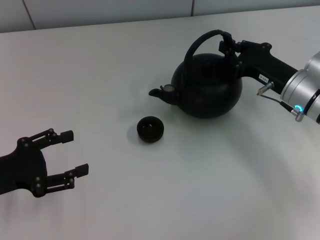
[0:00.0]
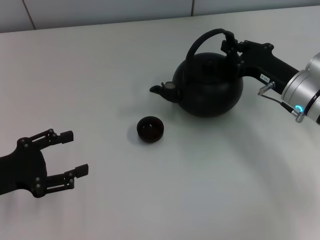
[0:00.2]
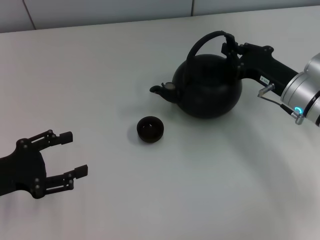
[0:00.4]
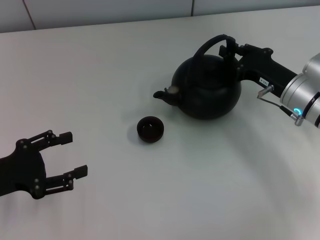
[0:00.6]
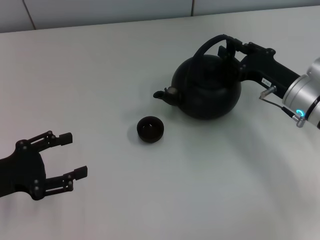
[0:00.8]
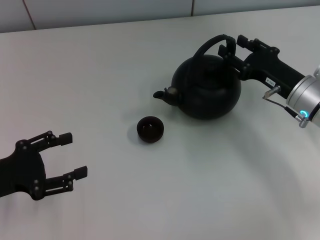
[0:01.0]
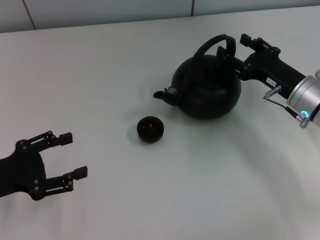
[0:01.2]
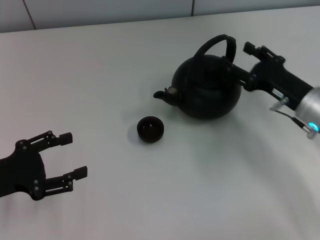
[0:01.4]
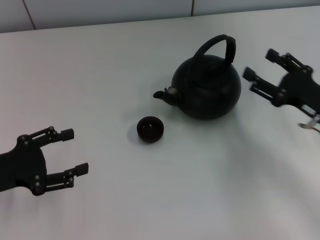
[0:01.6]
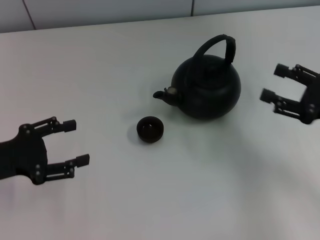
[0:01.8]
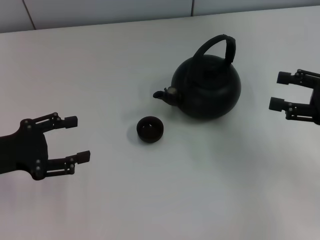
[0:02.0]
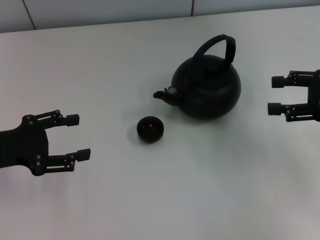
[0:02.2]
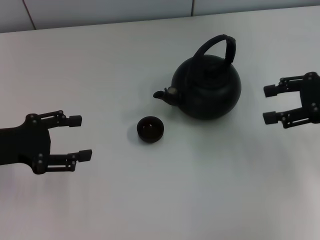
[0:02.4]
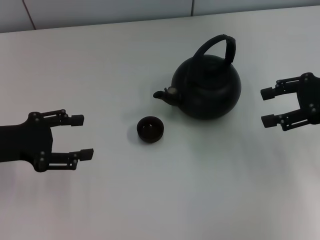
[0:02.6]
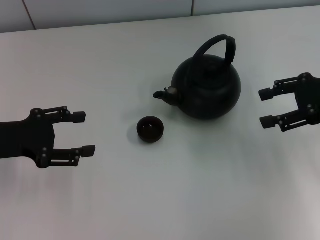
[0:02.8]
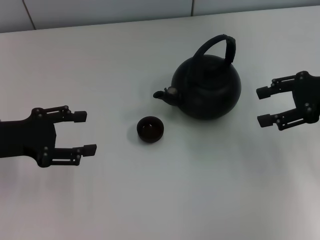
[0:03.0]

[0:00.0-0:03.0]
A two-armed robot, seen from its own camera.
Task of the whole recording: Grasp the handle of the teapot with one hand and pour tea into the teacup.
0:00.0 to 0:01.6: The right gripper goes some 10 cm backward and to the right, and opens its fingers.
0:01.6 to 0:03.0: The left gripper moves forward, roughly 5 cm. The right gripper is displaced upward and forward by approximately 10 cm.

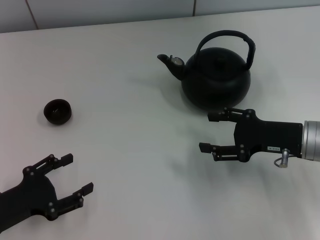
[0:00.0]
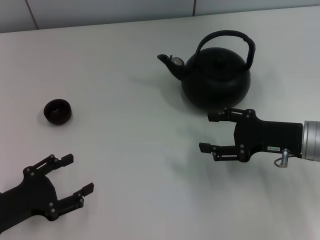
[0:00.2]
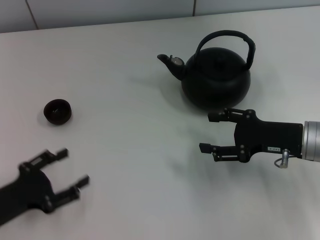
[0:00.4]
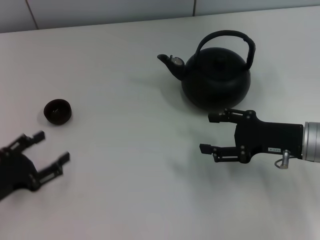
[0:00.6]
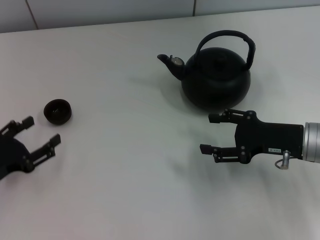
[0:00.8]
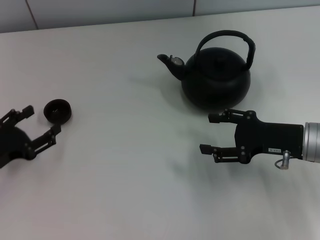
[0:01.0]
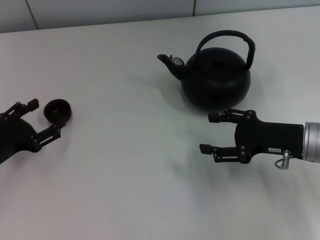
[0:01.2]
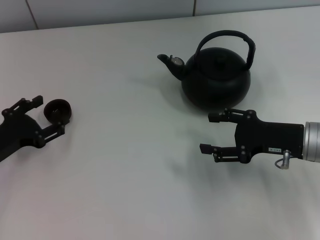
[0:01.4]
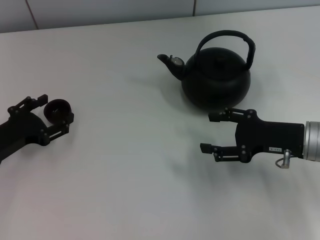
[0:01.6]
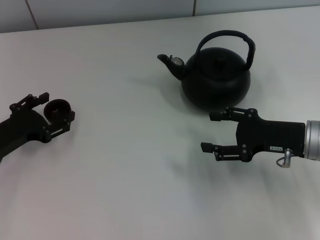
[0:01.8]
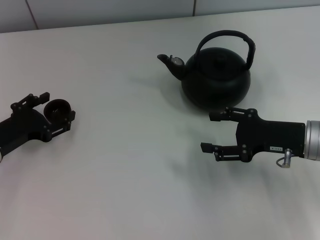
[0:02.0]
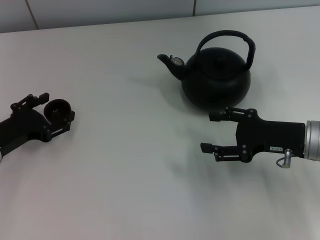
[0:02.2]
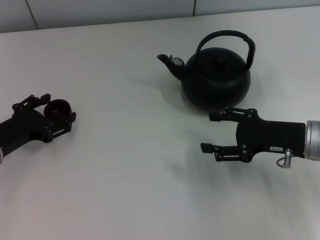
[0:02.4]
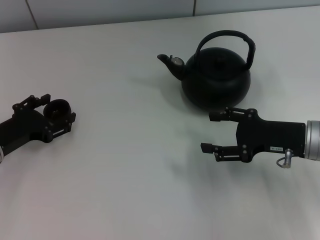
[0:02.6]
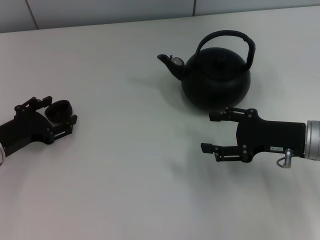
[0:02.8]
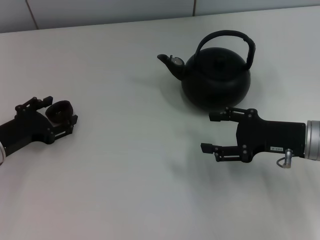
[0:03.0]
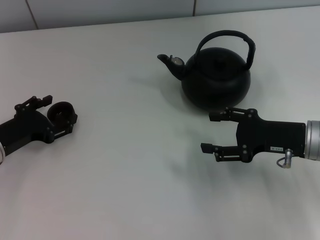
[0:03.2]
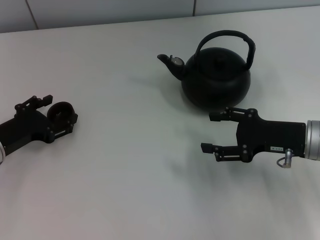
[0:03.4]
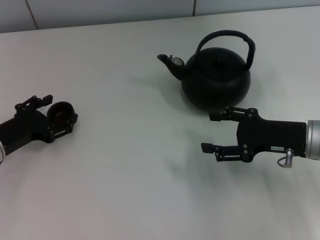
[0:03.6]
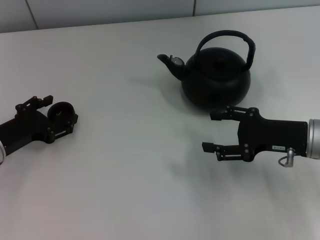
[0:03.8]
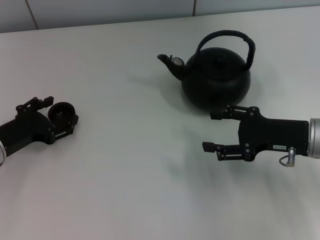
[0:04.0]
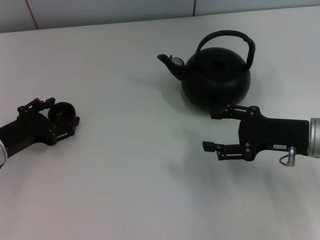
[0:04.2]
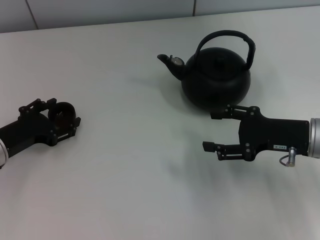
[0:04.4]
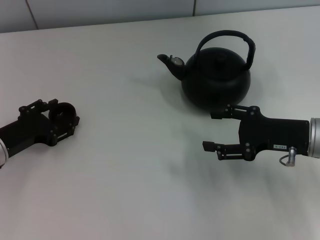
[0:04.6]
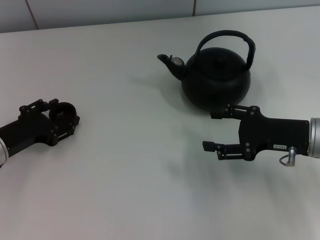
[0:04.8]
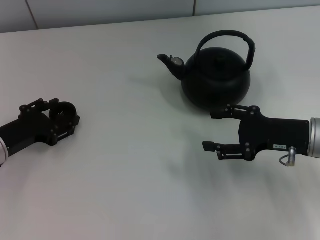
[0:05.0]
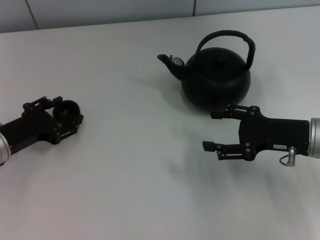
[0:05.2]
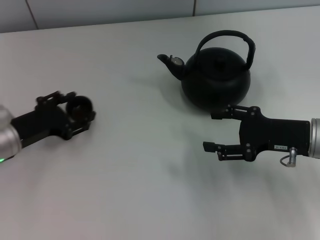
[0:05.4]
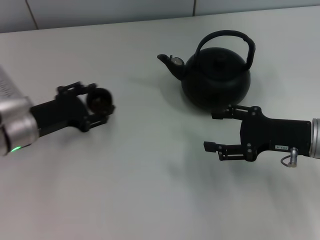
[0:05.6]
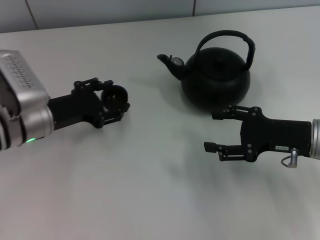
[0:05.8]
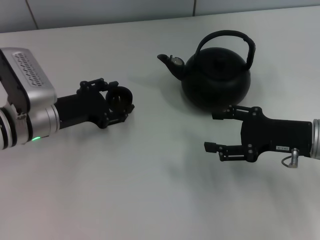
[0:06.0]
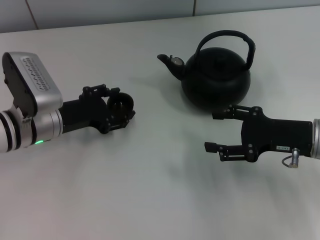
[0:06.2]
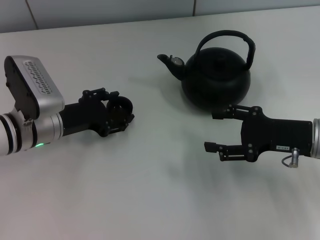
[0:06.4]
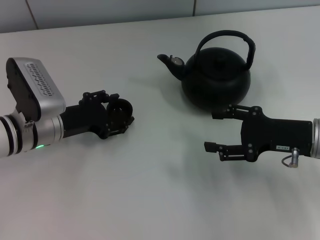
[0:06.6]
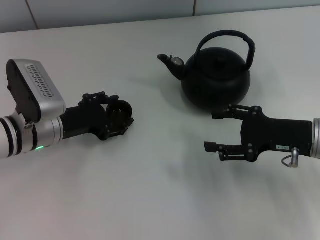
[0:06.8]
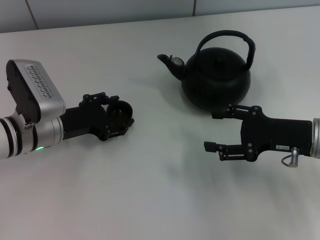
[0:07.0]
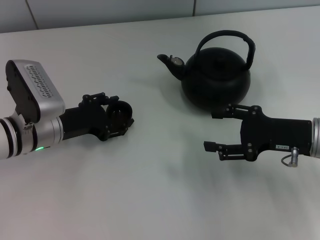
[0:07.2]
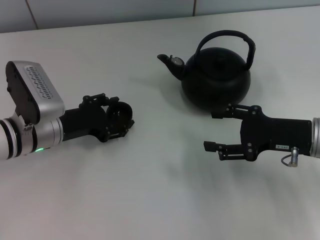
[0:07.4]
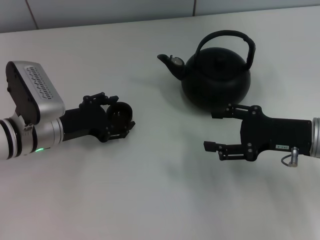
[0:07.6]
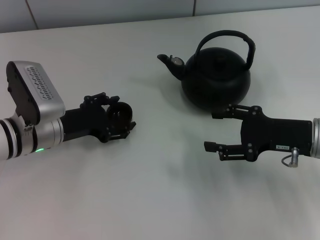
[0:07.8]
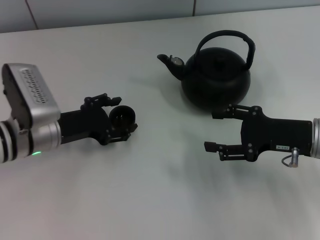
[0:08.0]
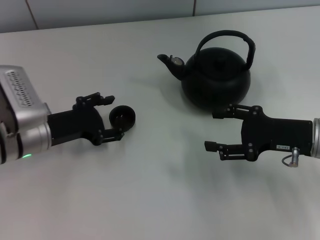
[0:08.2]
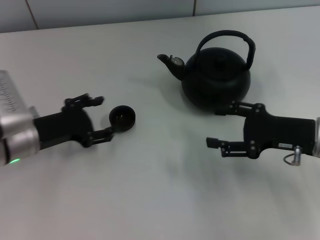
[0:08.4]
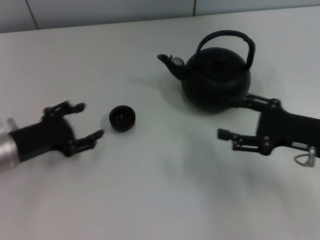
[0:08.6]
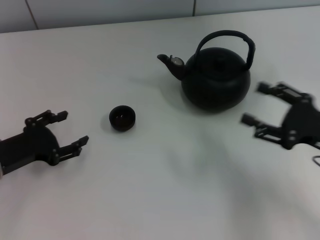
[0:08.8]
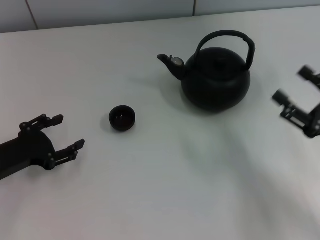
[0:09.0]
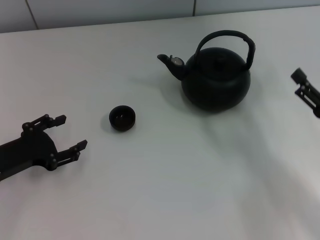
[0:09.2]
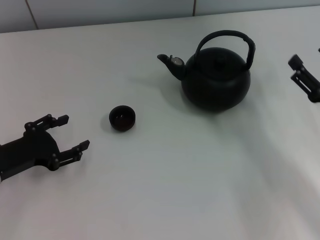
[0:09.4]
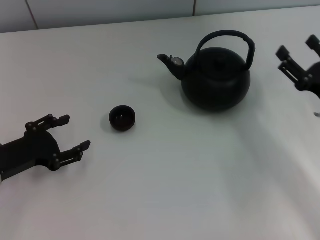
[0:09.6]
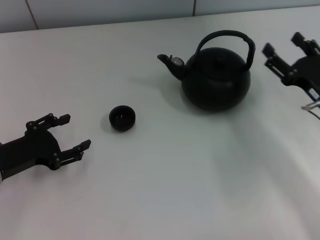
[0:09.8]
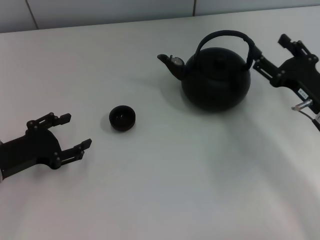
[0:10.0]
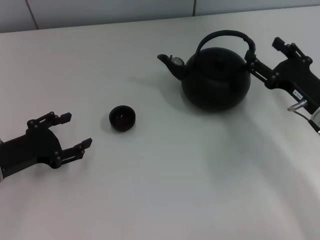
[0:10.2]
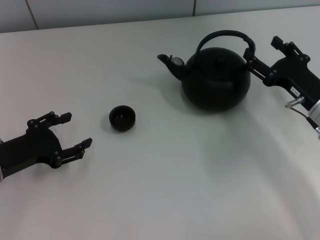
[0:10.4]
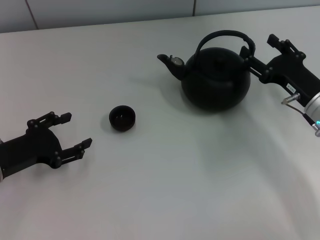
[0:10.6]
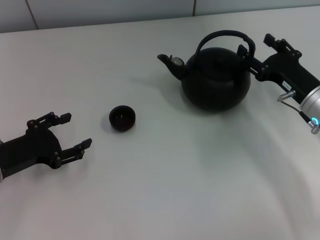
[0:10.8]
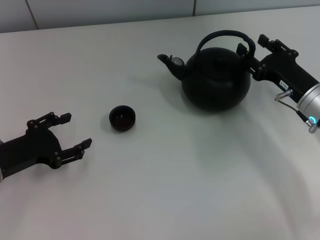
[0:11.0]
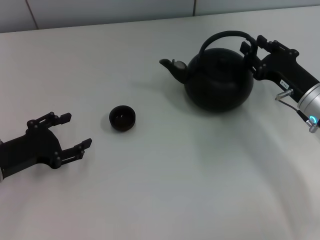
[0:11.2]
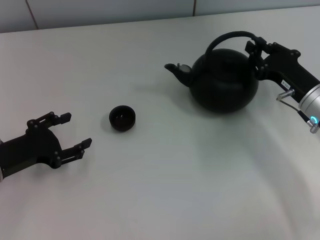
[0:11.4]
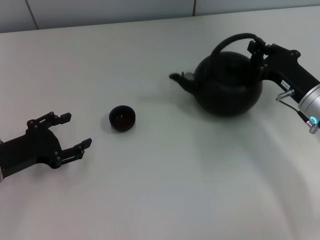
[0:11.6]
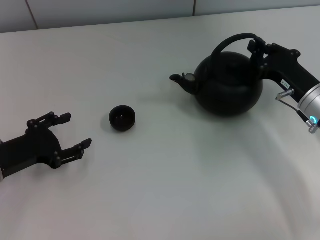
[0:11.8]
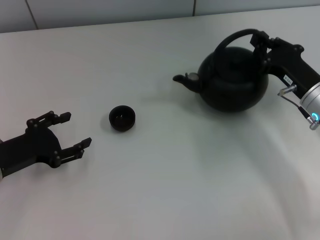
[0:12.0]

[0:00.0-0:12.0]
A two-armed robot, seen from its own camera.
Task of the whole recording: Grasp the handle of the teapot with one hand and pour tea into the teacup.
Step, 0:00.0 to 0:05.4: Pick up the teacup with the left gripper.
Step, 0:05.6 to 0:08.4: Place the teacup in the center of view with the left gripper.
0:00.0 to 0:01.6: The left gripper heads forward, covering roughly 10 cm.
0:01.6 to 0:03.0: The grippers make only small movements.
0:03.0 to 0:04.4: Both grippers stay put.
0:04.4 to 0:06.0: The left gripper heads to the right, covering about 10 cm, and closes its fingers.
0:06.0 to 0:07.6: The left gripper opens.
0:07.6 to 0:09.0: The left gripper travels to the left and backward by approximately 10 cm, and opens up. Meanwhile the right gripper travels backward by roughly 10 cm.
0:09.0 to 0:10.4: The right gripper travels forward by about 10 cm.
0:10.4 to 0:12.0: The right gripper closes its fingers.

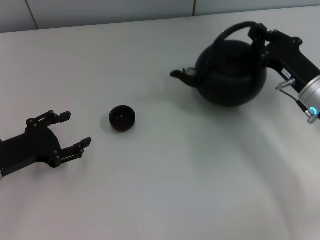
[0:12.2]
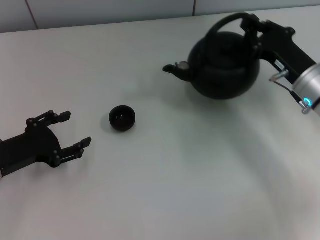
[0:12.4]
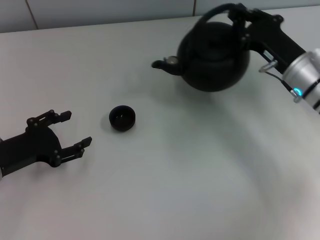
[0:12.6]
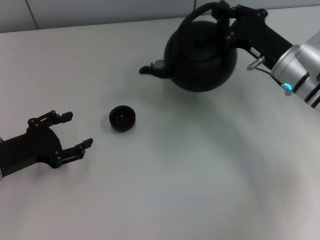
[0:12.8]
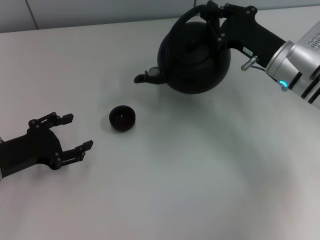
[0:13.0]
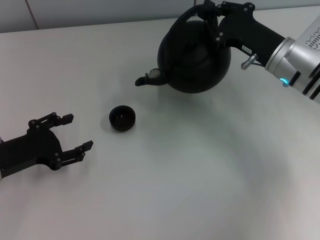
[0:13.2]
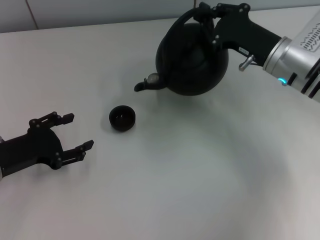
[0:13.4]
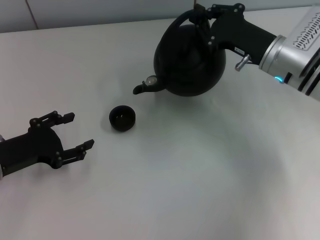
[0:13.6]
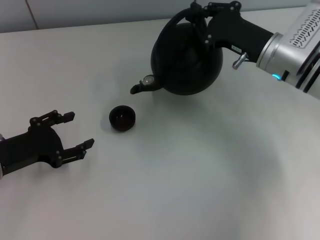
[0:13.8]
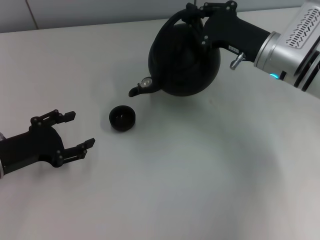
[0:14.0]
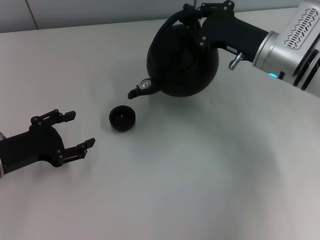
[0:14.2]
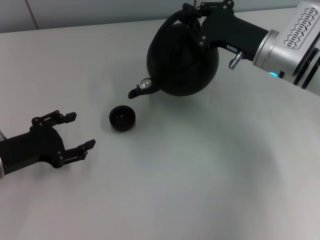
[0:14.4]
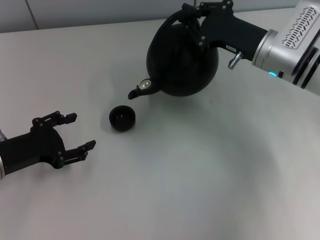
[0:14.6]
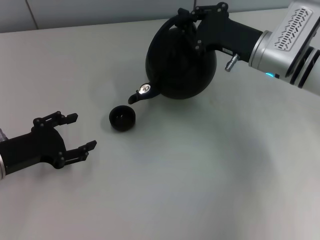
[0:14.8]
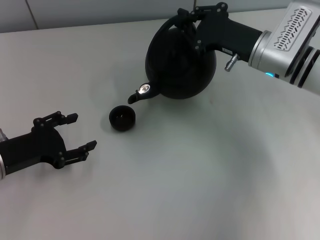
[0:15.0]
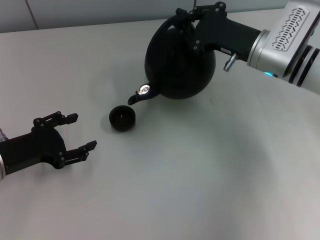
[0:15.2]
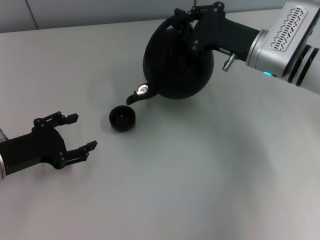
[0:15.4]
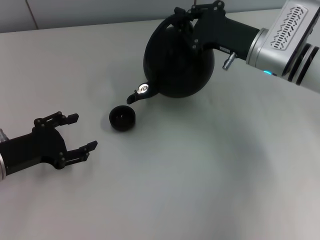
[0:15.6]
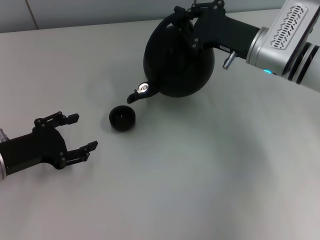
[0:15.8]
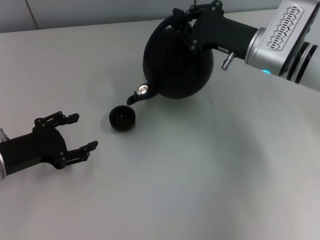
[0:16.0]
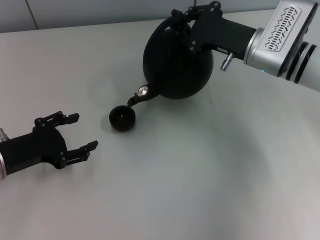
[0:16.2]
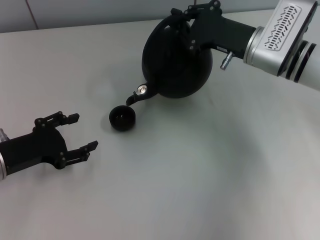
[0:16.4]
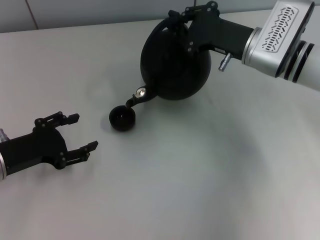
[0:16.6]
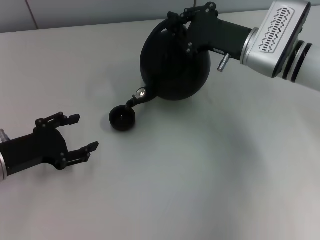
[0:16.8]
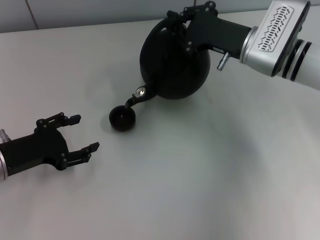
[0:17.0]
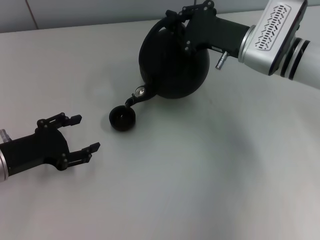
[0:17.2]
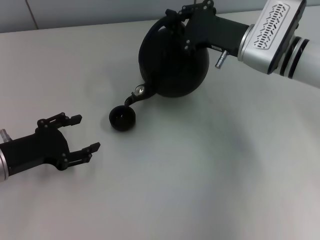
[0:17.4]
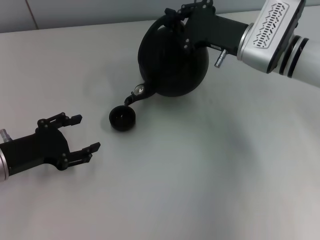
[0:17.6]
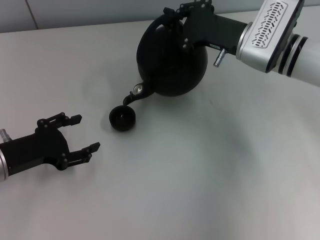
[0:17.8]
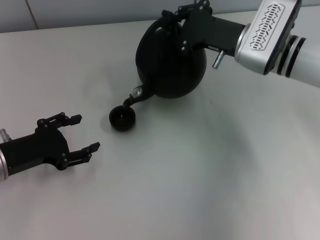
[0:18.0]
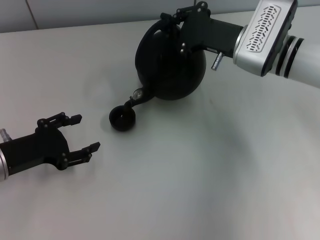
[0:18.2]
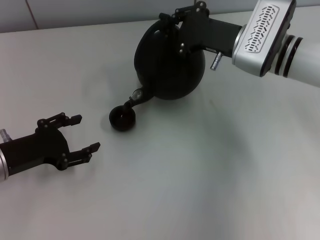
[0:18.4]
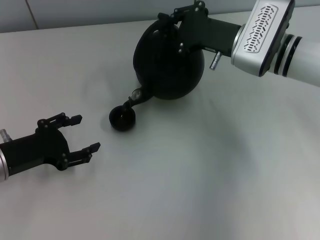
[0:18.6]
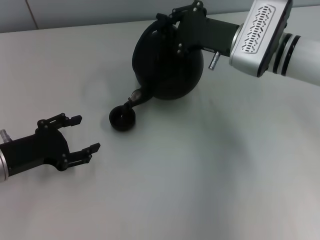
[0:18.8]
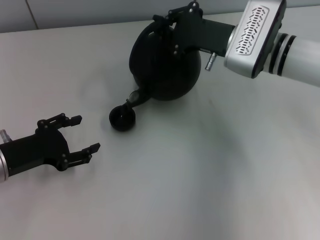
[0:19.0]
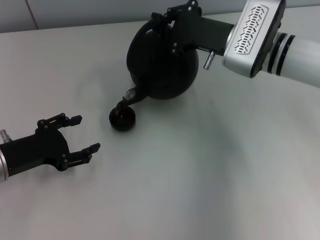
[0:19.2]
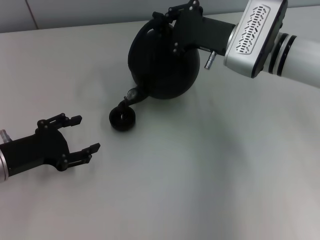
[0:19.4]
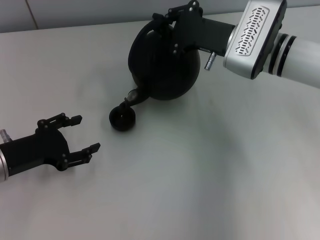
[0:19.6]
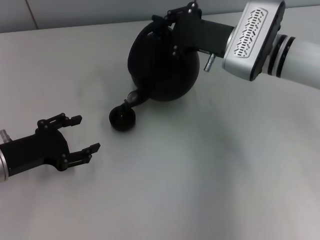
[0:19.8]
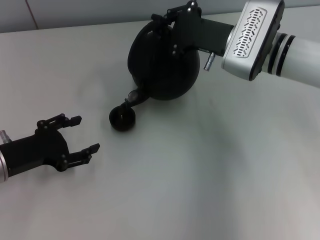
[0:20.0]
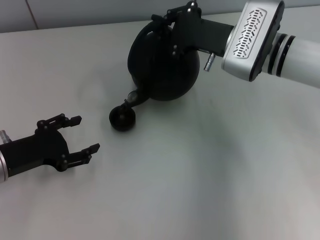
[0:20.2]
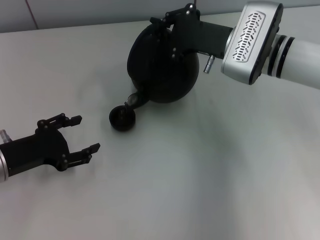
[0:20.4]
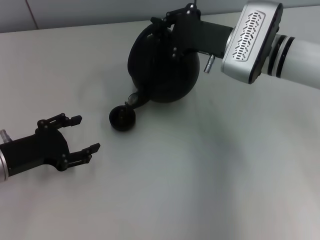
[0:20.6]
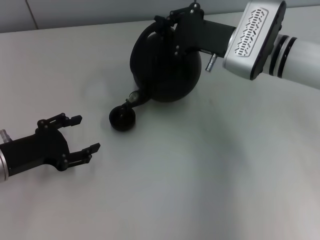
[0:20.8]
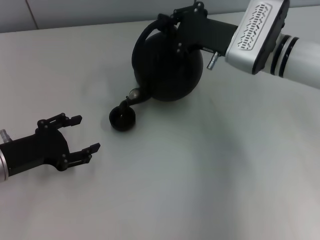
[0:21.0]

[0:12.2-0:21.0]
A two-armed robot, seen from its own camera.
Task of the whole recording: Grasp the handle of the teapot with one hand and pour tea into the teacup.
0:12.2 to 0:13.6: The right gripper shifts roughly 5 cm forward and to the left.
0:13.6 to 0:15.2: The grippers make only small movements.
0:15.2 to 0:16.6: Both grippers stay about where they are.
0:16.6 to 0:18.0: Both grippers stay about where they are.
0:18.0 to 0:19.6: The grippers stay close to where they were, moving slightly.
0:19.6 to 0:21.0: The two grippers keep their place.
